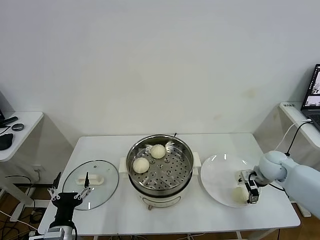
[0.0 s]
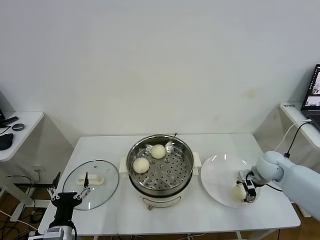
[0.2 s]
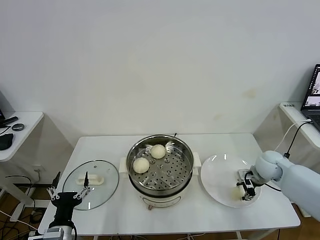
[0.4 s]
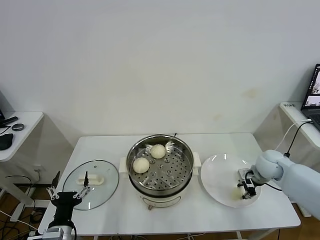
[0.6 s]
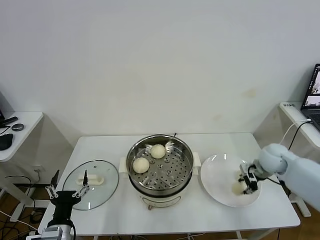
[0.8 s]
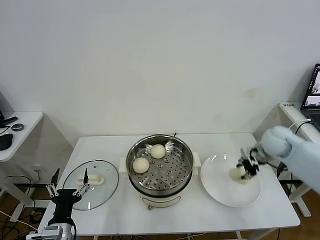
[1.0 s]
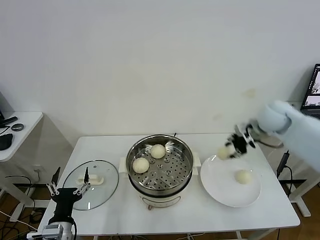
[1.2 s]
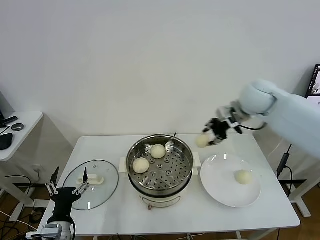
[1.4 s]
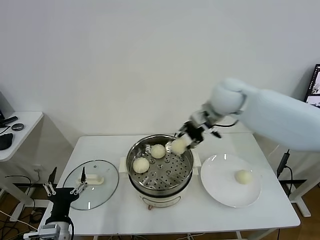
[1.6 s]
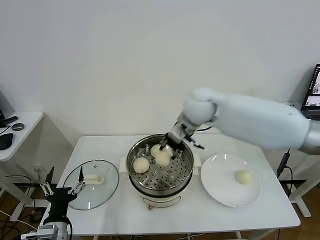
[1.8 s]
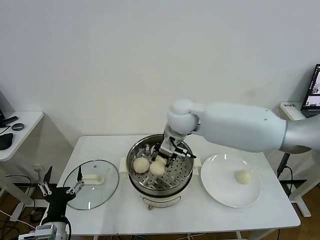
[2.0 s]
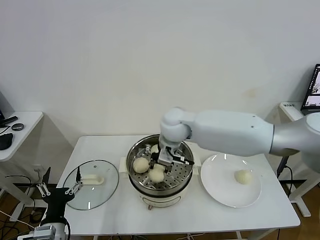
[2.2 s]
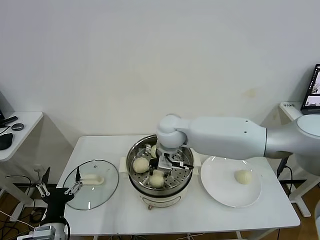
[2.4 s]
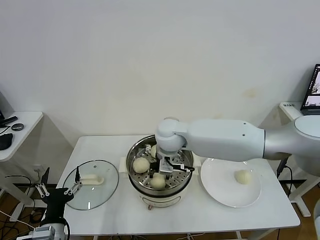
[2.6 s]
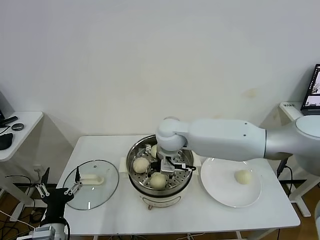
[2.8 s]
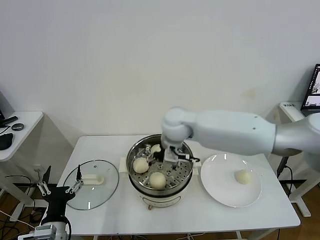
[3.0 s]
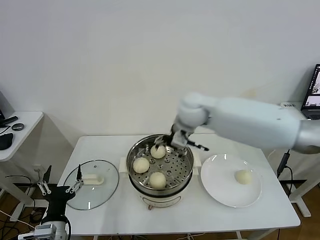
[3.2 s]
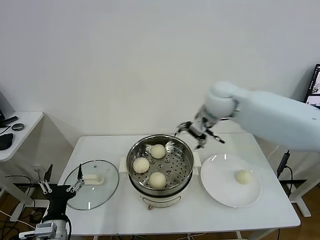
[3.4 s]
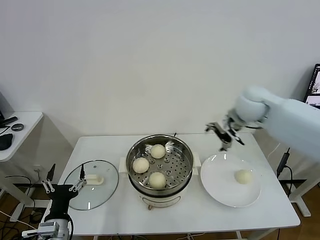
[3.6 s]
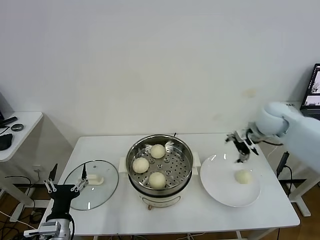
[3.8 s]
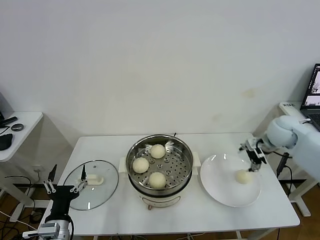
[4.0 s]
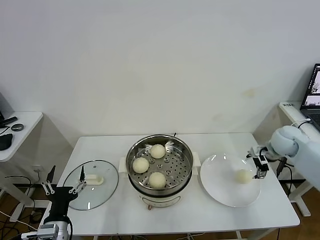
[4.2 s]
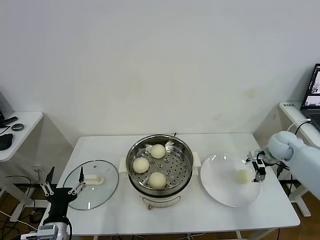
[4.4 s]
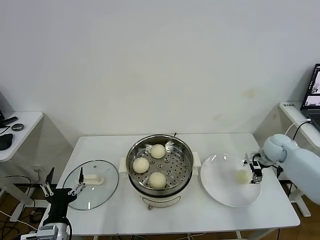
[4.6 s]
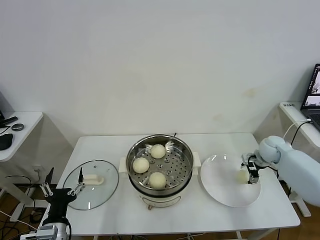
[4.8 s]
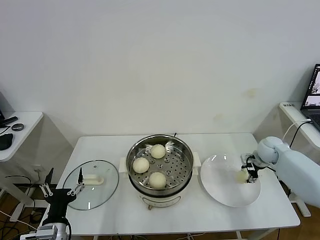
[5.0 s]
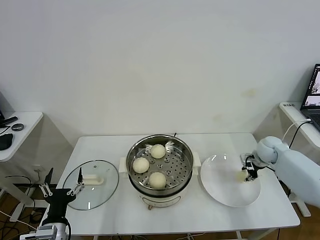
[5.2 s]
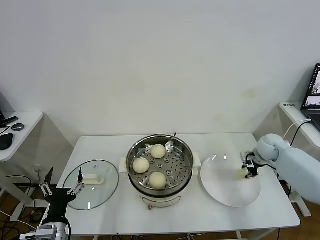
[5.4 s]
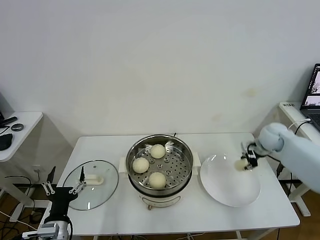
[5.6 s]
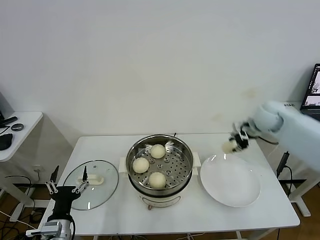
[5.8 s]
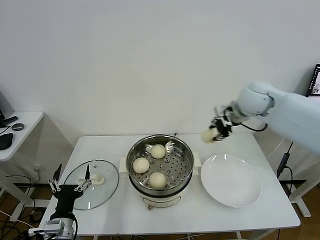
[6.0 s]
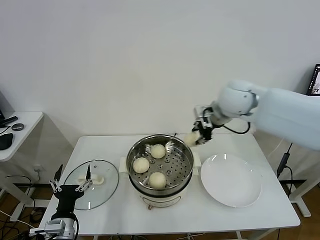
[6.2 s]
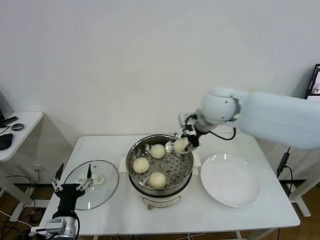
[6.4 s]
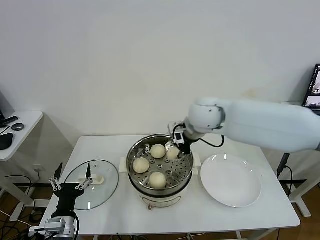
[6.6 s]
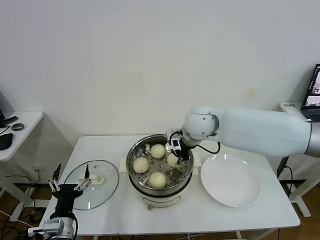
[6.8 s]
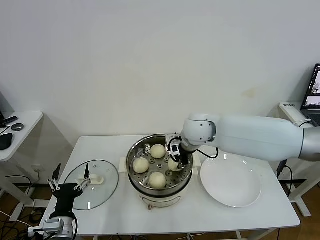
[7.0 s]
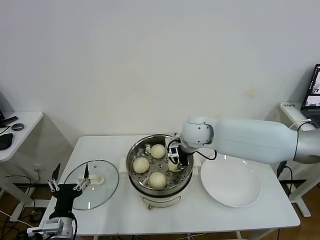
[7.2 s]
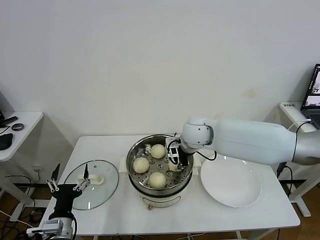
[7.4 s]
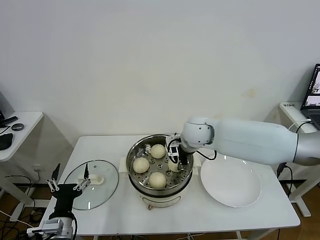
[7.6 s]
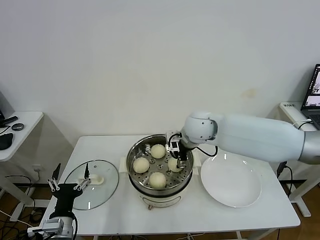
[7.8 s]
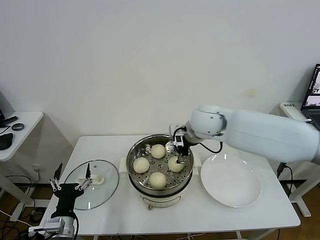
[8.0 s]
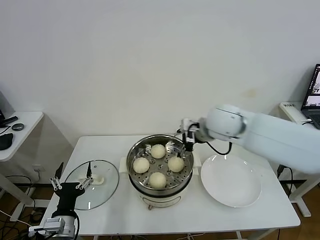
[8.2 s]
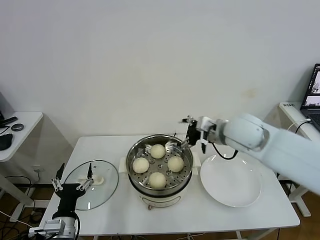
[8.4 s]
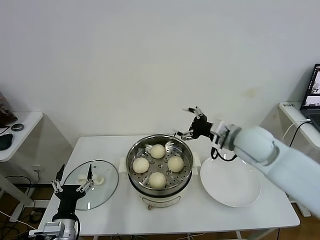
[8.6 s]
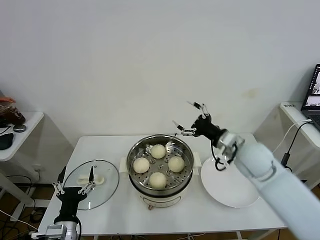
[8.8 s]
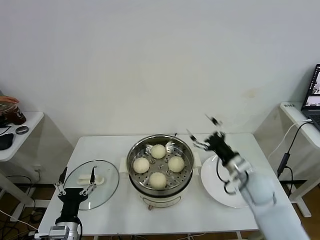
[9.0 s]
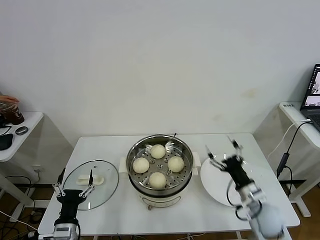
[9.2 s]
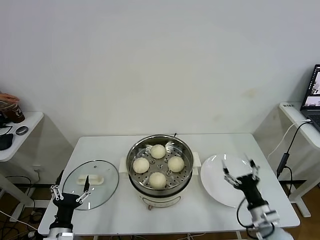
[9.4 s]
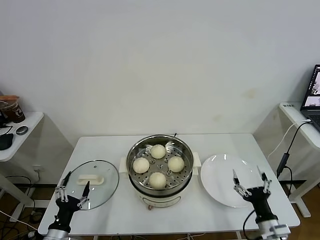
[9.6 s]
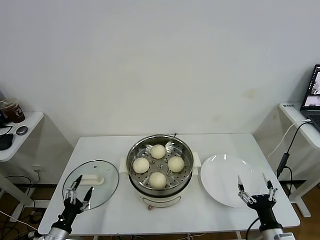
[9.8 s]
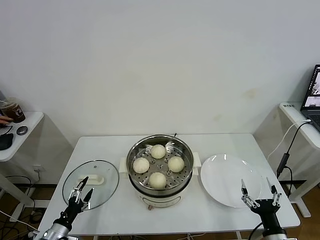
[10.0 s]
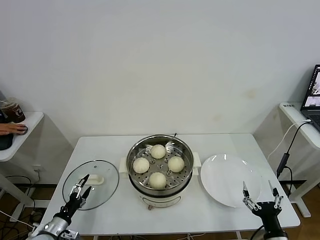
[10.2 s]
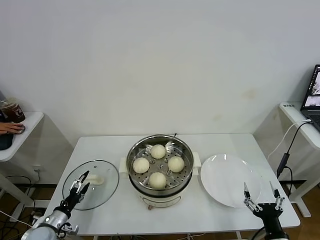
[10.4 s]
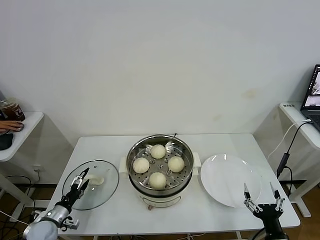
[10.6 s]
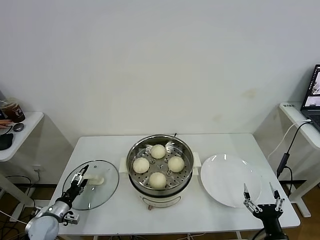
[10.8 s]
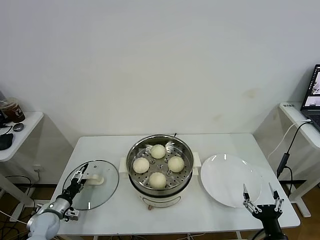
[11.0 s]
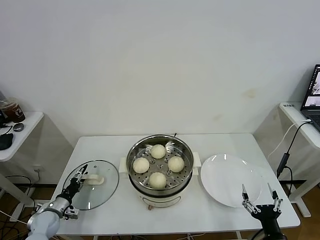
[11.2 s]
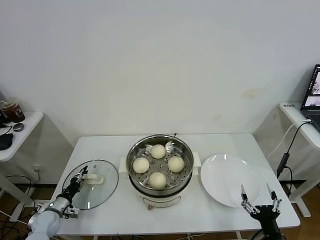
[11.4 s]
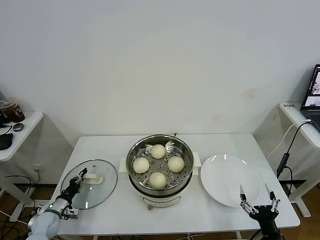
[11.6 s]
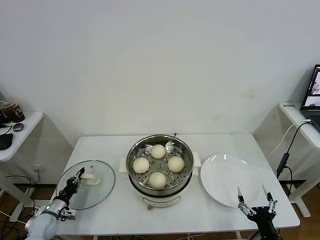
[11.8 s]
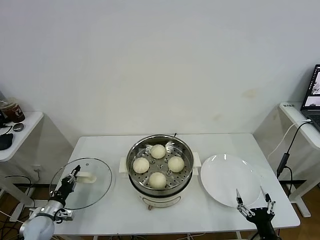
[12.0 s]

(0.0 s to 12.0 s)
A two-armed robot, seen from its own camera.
Task of the whole recording: take steamed baozi put them in steamer.
Step, 0.6 s - 3.0 s: Place the baozi on the steamer with right gripper.
Step, 3.2 s - 5.0 s: Grasp the baozi in the plate with right gripper.
Step, 5.4 s - 7.8 s: Place the baozi on the steamer with right gripper.
Step, 8.0 s - 11.8 s: Grasp the pot lid with left gripper.
0.0 s - 1.6 s: The right gripper moves upward and to the left, about 30 cm, and closes.
1.6 s - 3.0 s: The right gripper moves to the left and downward, roughly 15 cm, and opens up.
3.0 s - 4.4 s: The right gripper is displaced to the right by some 40 cm.
4.4 s - 6.0 s: The right gripper travels upward and to the left by roughly 25 cm, and closes its fingers.
6.0 s - 7.6 s: The right gripper moves to the left and downward, roughly 20 cm.
7.6 s - 9.0 s: The right gripper travels to the right, backward and downward by some 25 cm, and opens up.
9.0 s - 10.4 s: The left gripper shifts some 15 cm to the left, downward and forward; the right gripper heads backward and downward, covering approximately 25 cm.
10.4 s - 12.0 s: The left gripper ends up about 5 cm from where it was, and closes up.

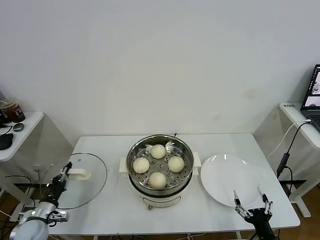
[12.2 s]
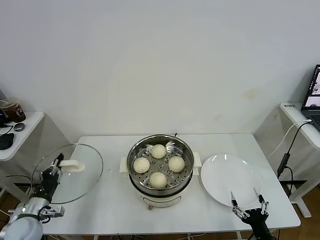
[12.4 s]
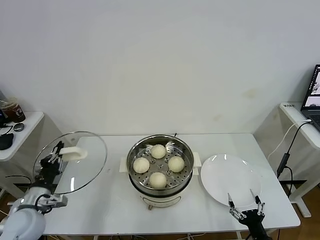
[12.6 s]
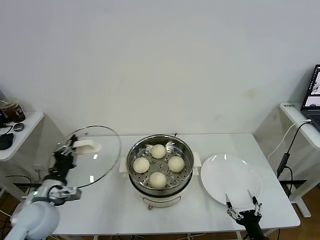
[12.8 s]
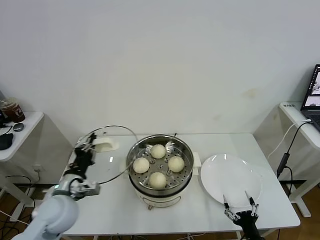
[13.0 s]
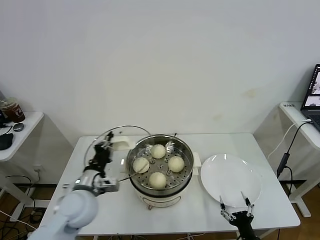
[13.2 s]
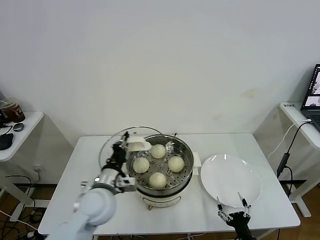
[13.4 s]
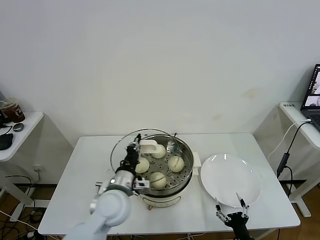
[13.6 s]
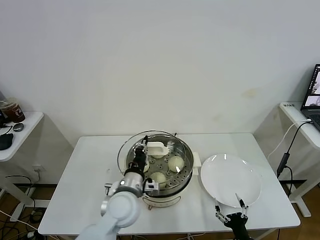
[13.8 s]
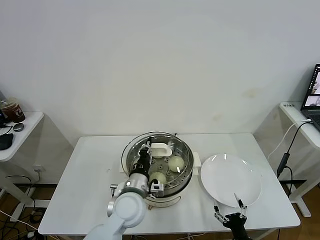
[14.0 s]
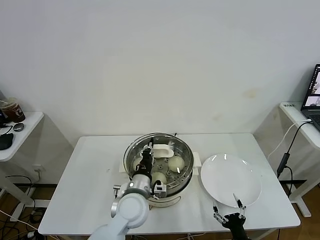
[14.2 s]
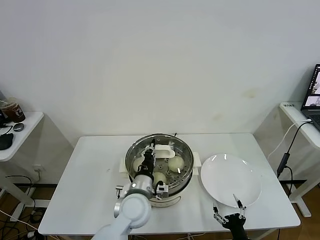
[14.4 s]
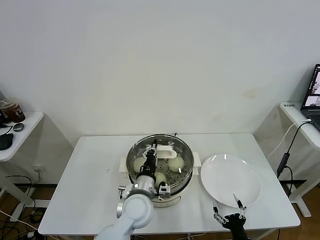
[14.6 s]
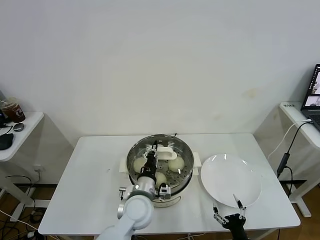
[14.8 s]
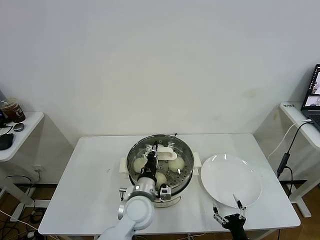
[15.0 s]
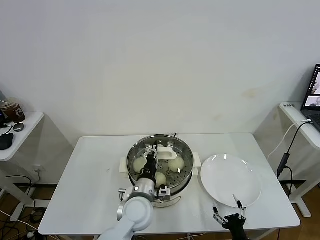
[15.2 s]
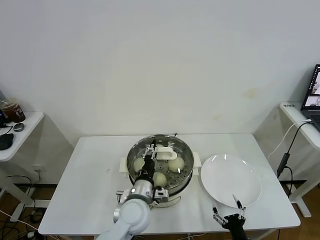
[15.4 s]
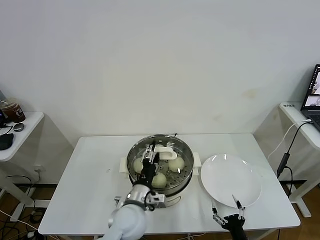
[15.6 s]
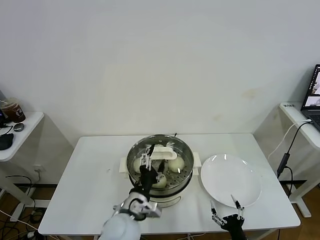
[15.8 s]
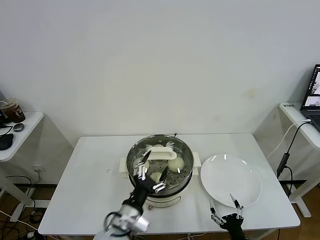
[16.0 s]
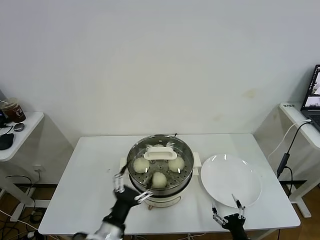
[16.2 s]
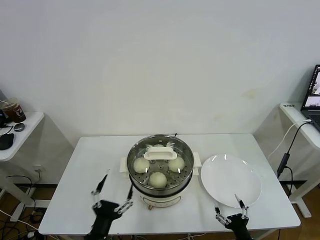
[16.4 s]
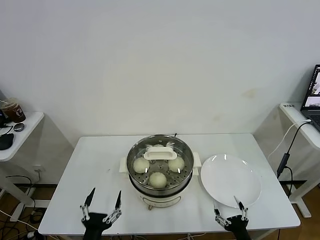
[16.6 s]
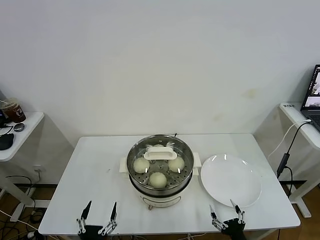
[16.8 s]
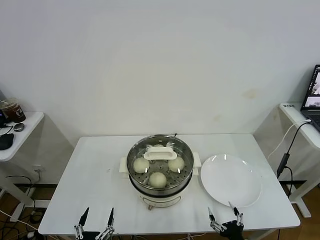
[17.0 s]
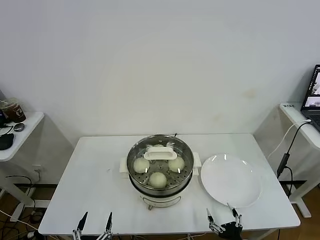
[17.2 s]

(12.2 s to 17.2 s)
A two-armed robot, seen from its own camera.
Task of the whole recording: take steamed baozi put them in steamer.
Step, 12.2 s - 15.8 s: Place the pot lid on the steamer with left gripper.
12.2 s - 13.8 s: The right gripper goes some 5 cm downward; the left gripper heads to the right and upward, covering about 35 cm.
13.8 s - 15.6 s: The left gripper opens its fingers.
15.6 s - 17.2 s: The left gripper goes approximately 30 cm backward, to the left and downward, and opens.

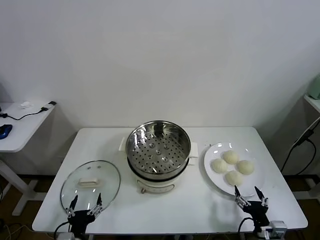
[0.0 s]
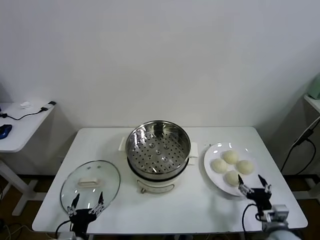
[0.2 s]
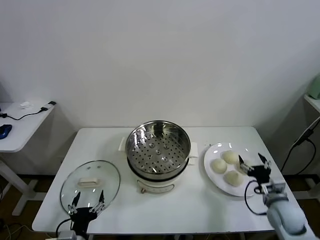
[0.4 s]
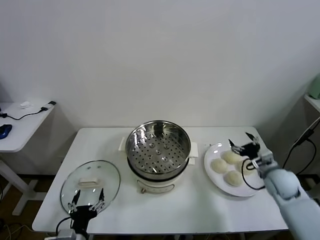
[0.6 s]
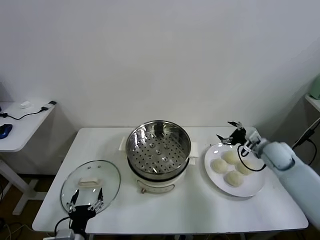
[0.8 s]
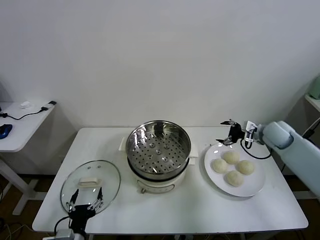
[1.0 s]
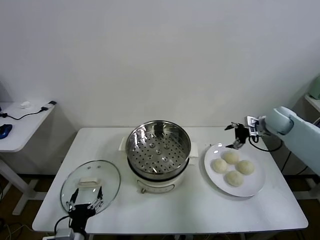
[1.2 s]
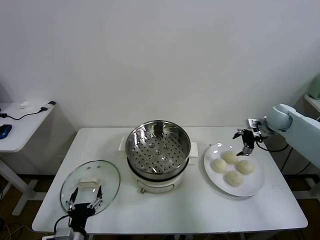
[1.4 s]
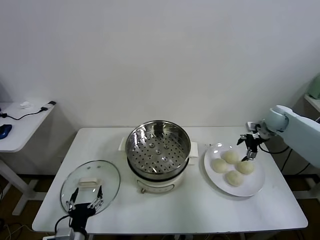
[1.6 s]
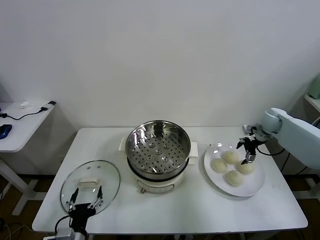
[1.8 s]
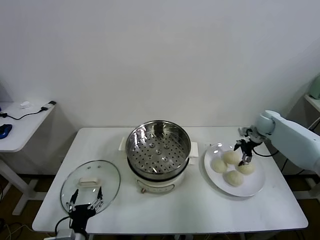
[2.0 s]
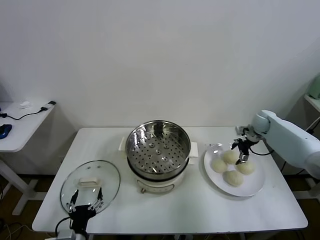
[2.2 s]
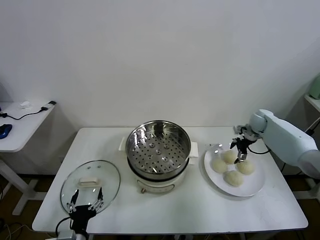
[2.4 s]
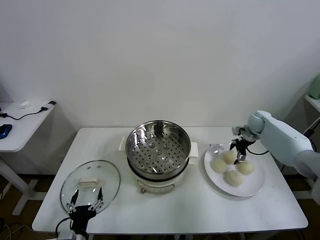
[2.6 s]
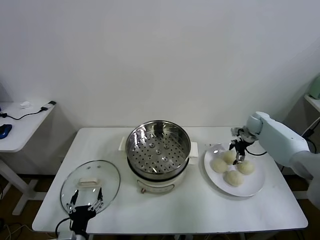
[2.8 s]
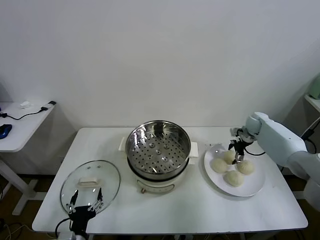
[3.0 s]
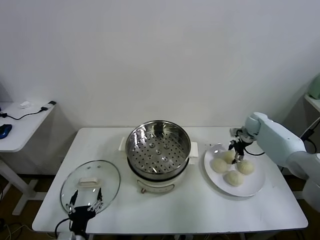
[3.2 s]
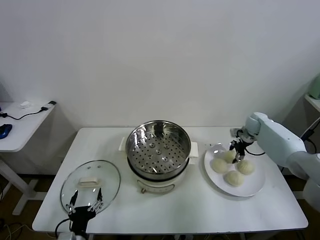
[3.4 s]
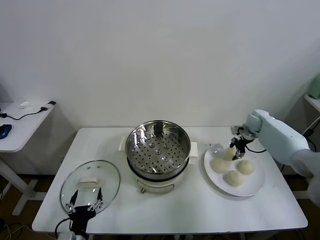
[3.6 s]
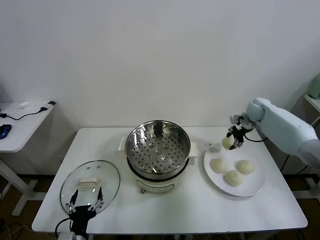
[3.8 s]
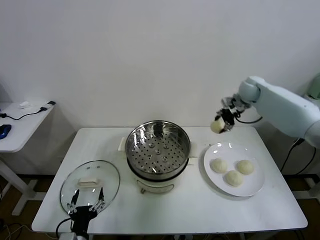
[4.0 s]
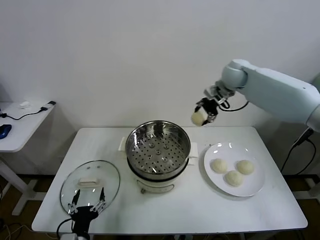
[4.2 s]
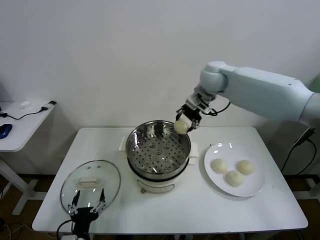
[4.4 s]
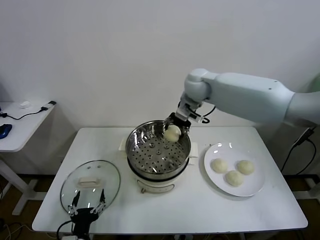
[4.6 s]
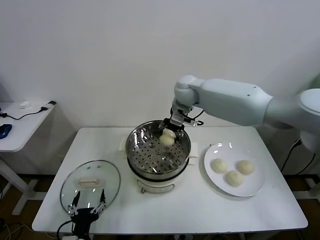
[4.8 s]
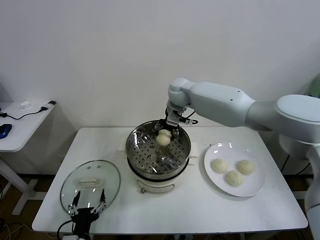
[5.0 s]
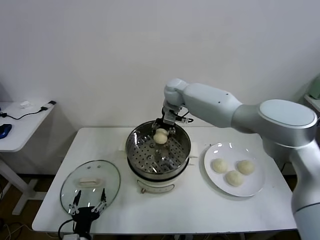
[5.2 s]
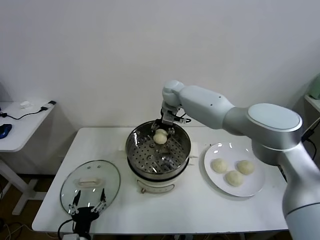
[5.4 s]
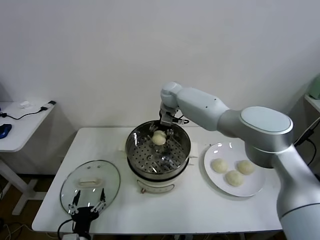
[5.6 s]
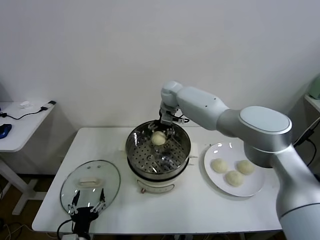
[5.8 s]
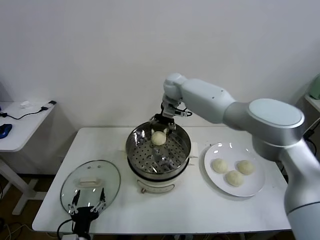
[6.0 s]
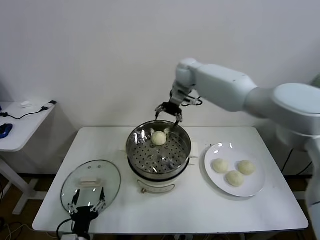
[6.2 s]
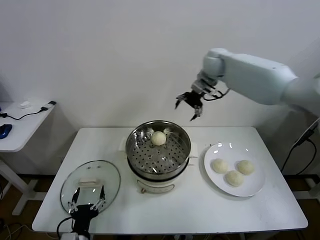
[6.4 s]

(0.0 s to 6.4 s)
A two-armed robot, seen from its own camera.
Task of the whole recording: take steamed baozi put them in steamer.
Step, 0.0 s - 3.2 s: Grasp the baozi in the plate with right gripper.
Step, 3.4 s - 5.8 s: Place the baozi on the steamer with right gripper.
1.6 s - 3.2 s: The right gripper travels downward by roughly 5 cm, and closes.
3.2 s - 4.8 s: The right gripper is displaced to the left and upward by some 40 cm.
4.8 s - 6.4 s: The right gripper is displaced to the right and upward by about 15 cm, and opens.
